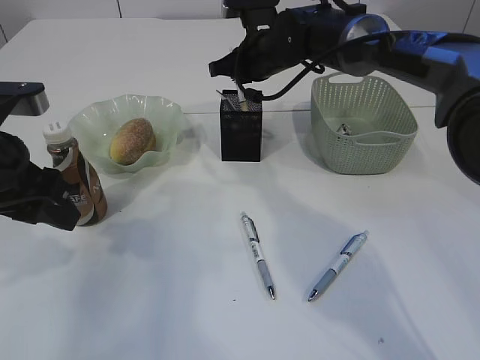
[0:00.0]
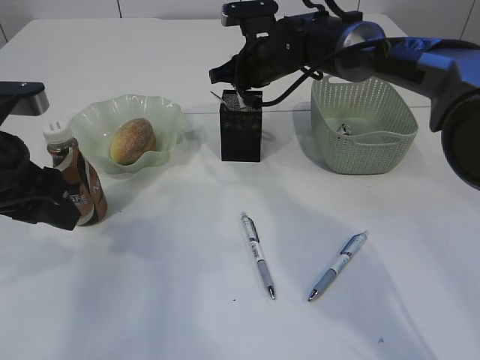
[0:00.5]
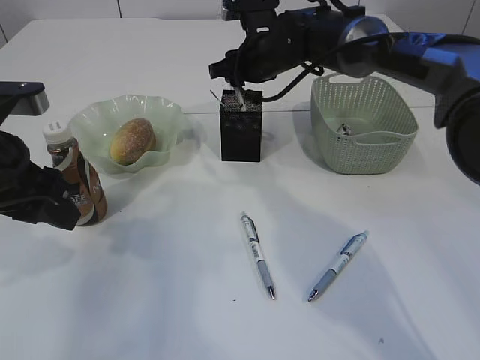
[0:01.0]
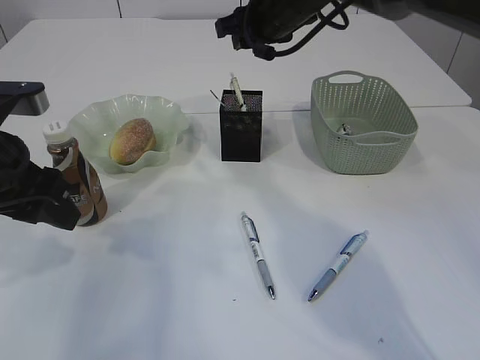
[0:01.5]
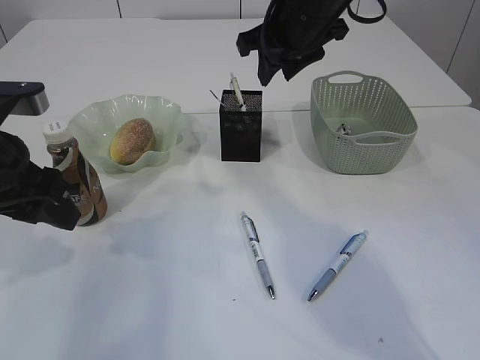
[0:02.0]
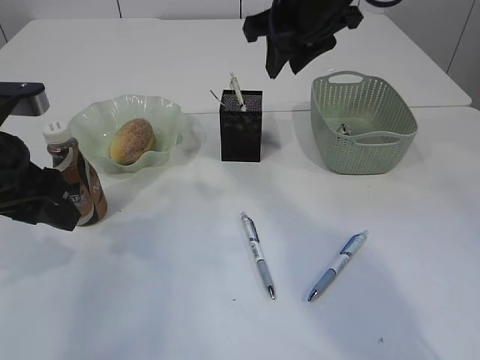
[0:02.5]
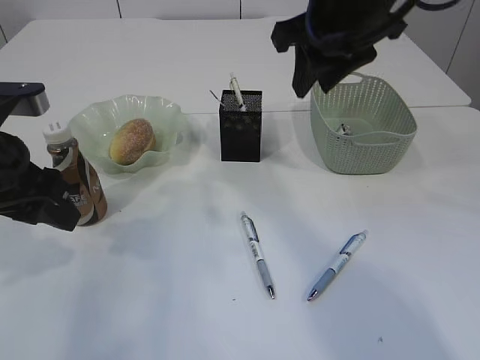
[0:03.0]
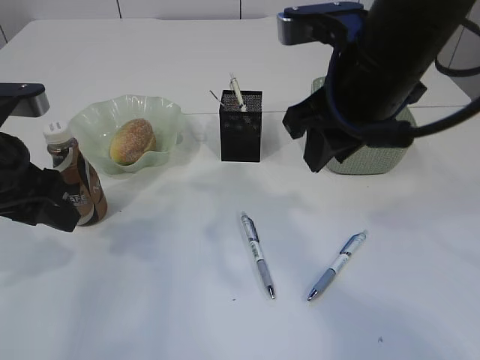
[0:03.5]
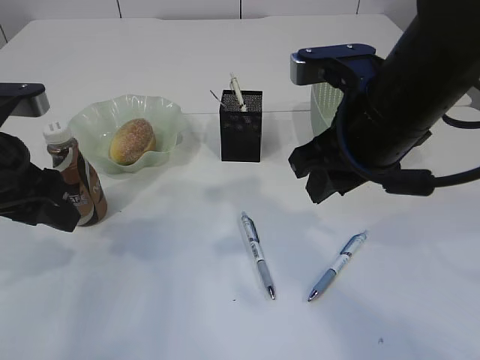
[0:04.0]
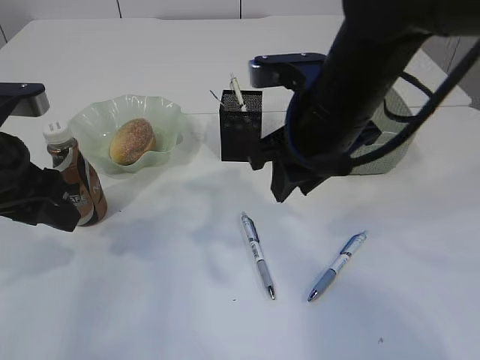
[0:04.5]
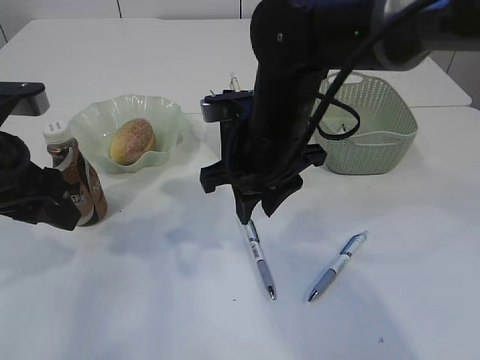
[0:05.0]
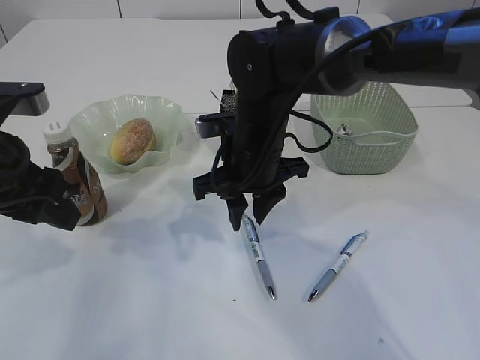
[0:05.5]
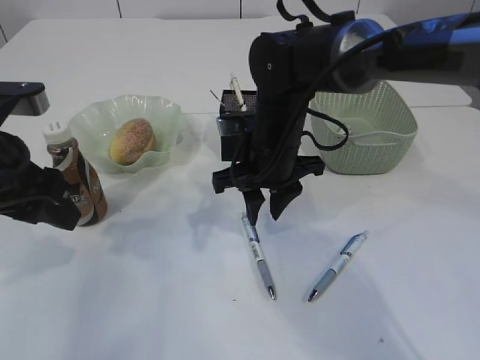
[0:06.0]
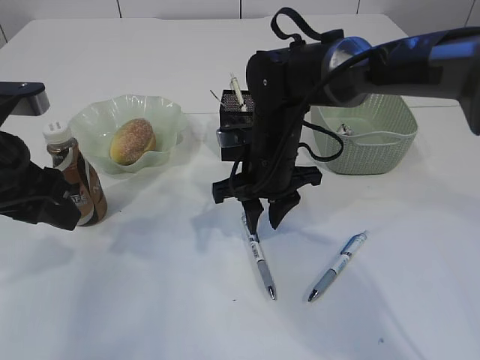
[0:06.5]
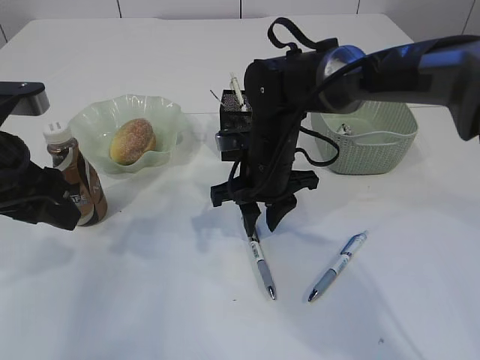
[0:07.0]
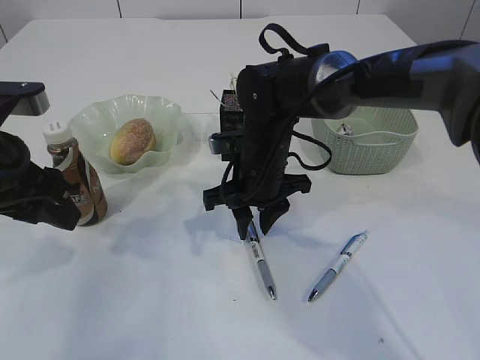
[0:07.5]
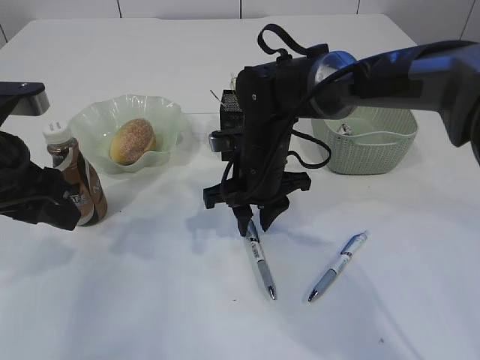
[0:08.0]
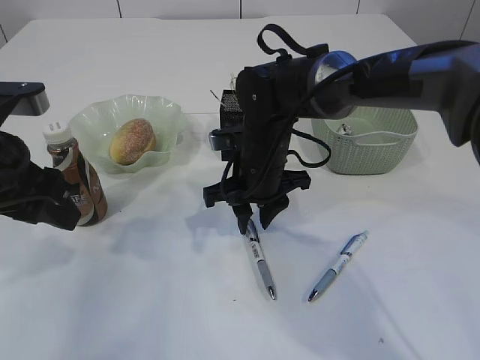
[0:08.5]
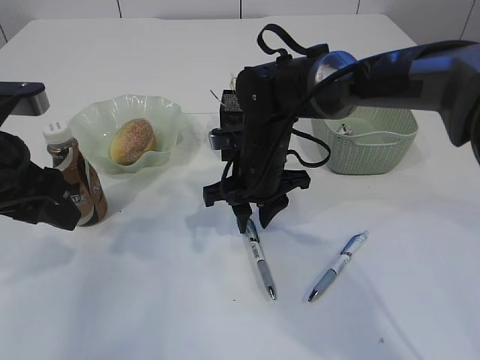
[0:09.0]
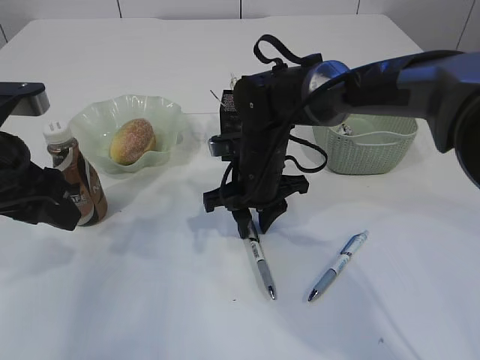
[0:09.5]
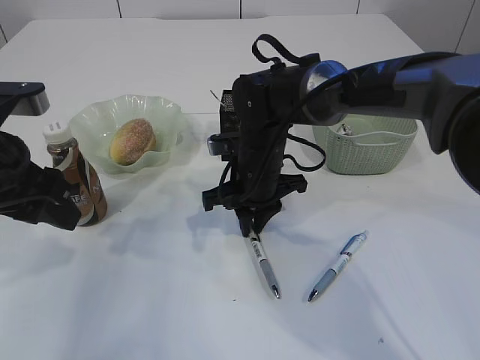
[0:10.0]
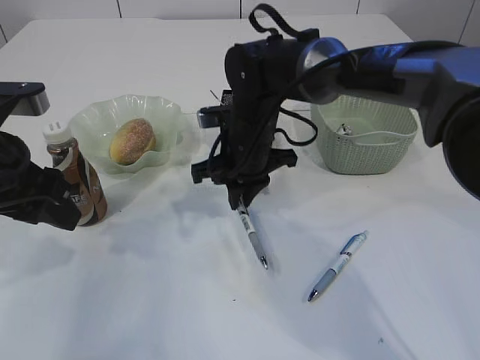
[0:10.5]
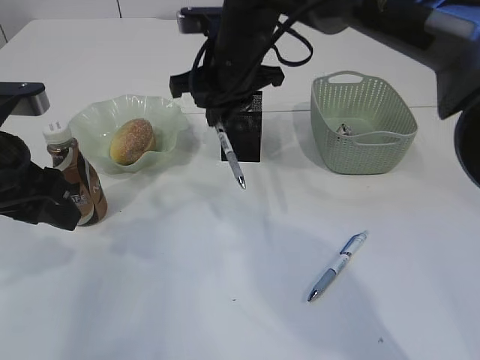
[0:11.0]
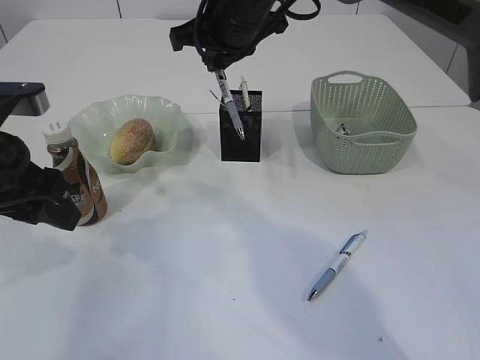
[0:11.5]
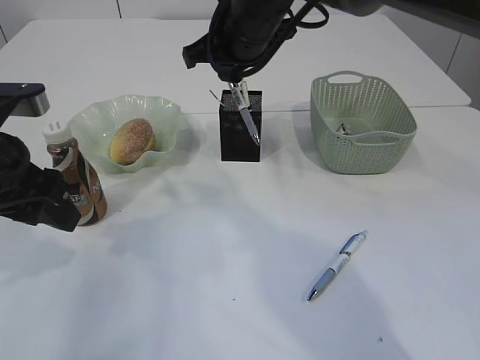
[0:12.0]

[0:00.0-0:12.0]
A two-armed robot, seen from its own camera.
Step, 0:01.5 to 0:10.5: Pick up the pen with right arm.
0:00.0 to 0:02.0: The right gripper heads upward and backward, covering about 10 cm, and opens up.
0:02.0 to 0:04.0: The right gripper is displaced backward by roughly 15 cm.
0:04.0 to 0:06.0: The right gripper heads forward, downward and to the left, covering roughly 15 cm.
0:06.0 to 0:08.0: The grippers make only small movements.
0:08.0 to 0:10.0: Neither gripper changes place.
0:10.0 to 0:12.0: The right gripper shifts about 15 cm upward.

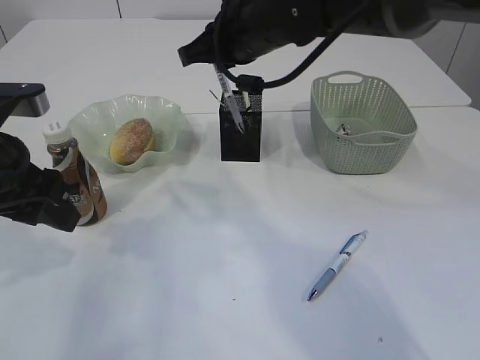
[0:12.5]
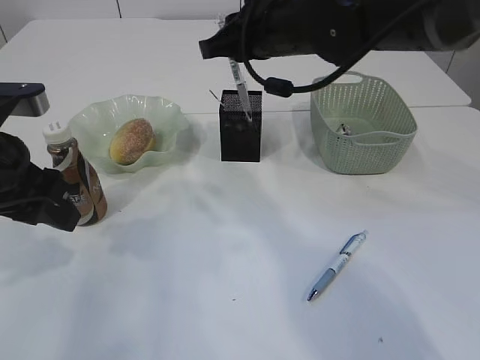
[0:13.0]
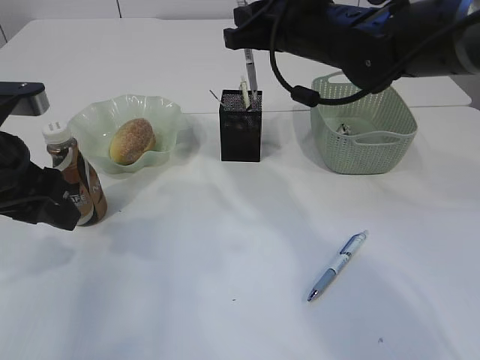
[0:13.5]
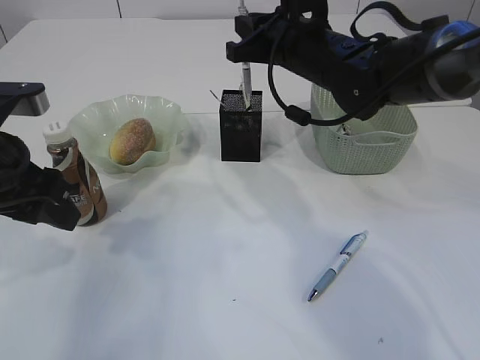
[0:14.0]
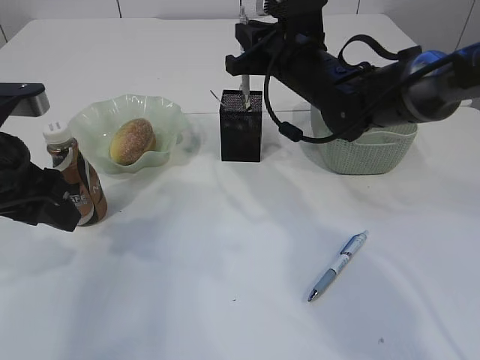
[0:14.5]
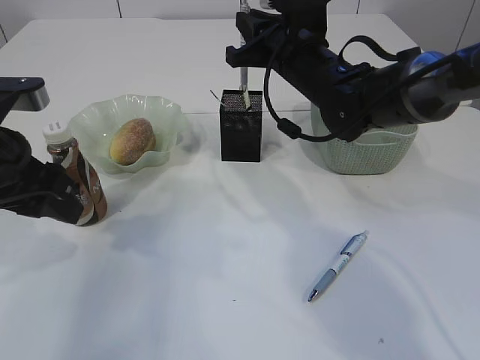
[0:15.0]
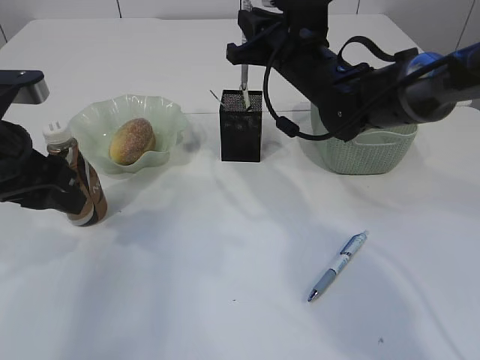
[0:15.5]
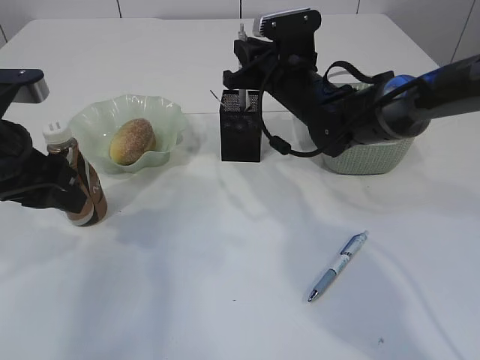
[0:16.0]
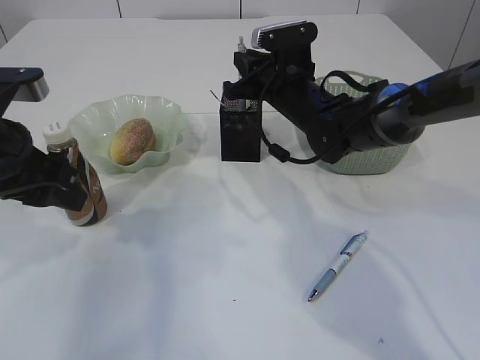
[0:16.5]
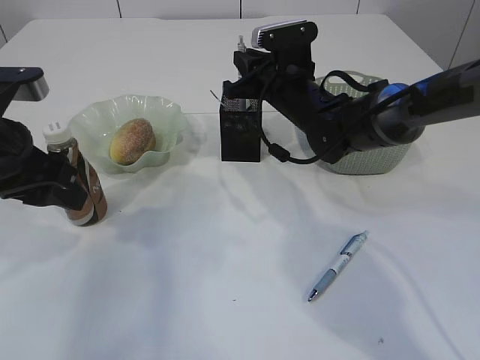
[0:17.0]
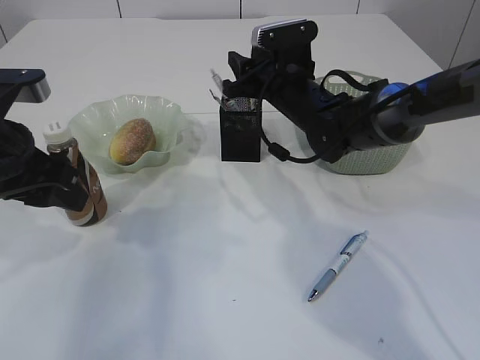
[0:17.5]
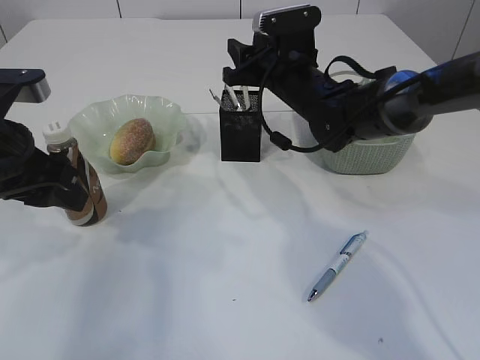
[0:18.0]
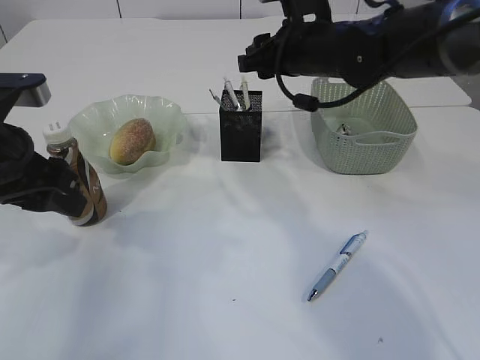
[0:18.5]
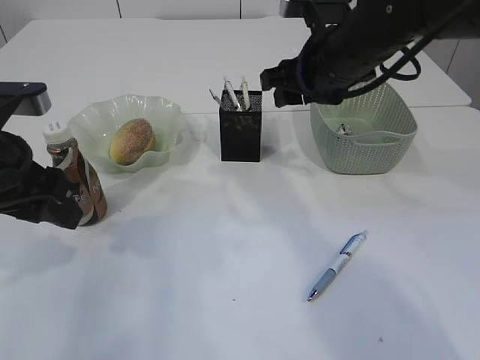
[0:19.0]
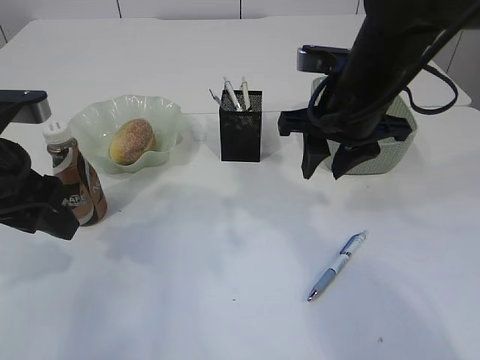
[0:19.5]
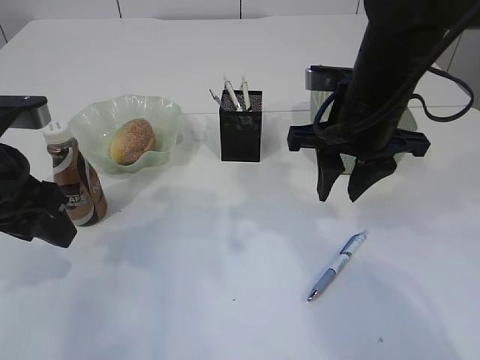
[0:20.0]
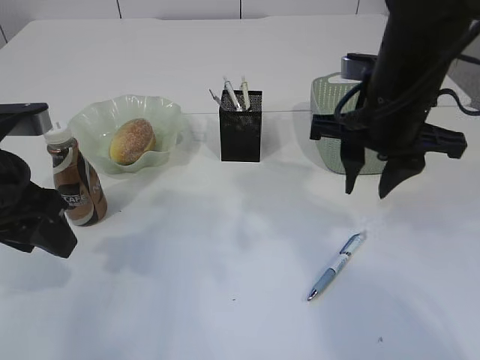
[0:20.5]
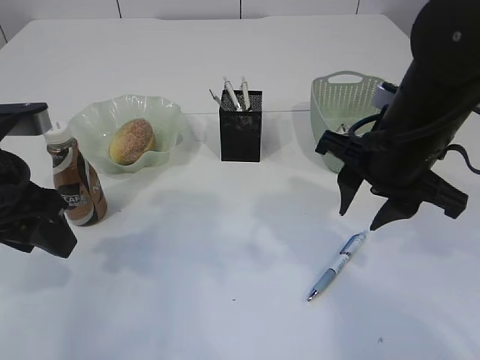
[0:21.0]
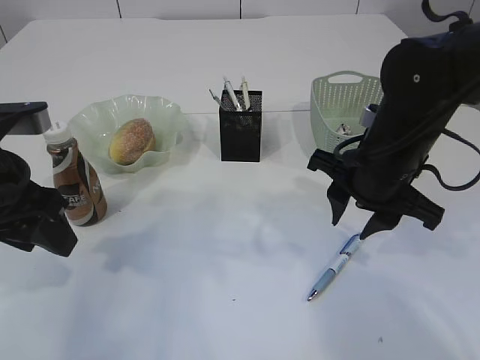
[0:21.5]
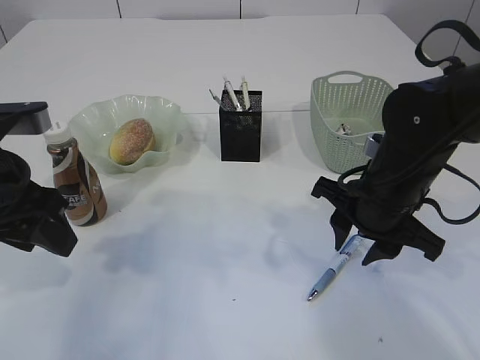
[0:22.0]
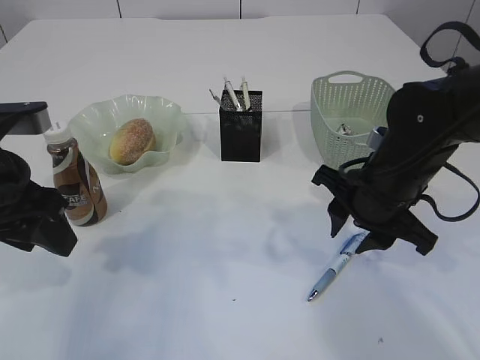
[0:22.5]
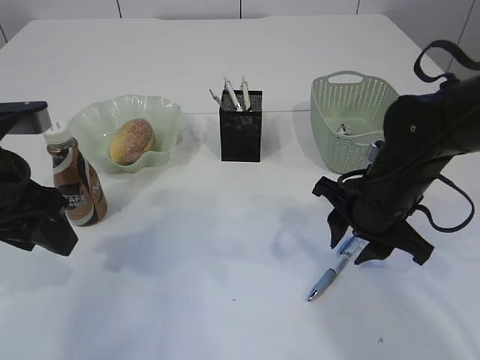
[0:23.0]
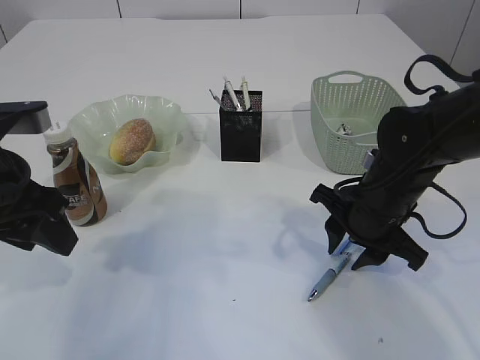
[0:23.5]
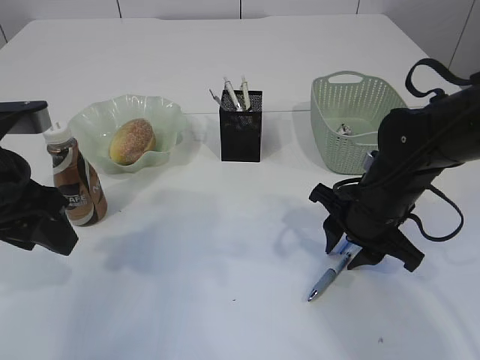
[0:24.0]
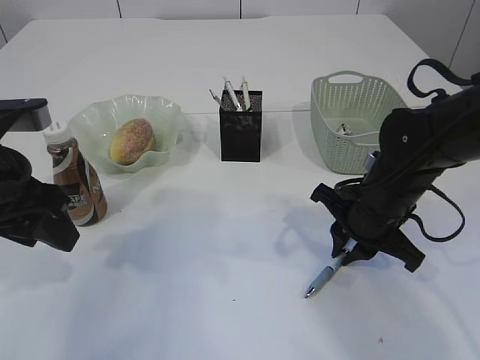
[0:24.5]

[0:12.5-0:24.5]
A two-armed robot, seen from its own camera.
Step, 0:12.5 to 0:18.0: Place the pen into the pen holder.
0:12.5 to 0:14.5: The right gripper goes about 10 cm downward and to the right.
0:14.5 to 0:16.5: The right gripper changes place by roughly 5 cm.
0:16.5 to 0:18.5: The right gripper is displaced upward by about 5 cm, and opens up.
0:18.5 to 0:20.5: The right gripper goes roughly 10 cm backward.
0:20.5 to 0:22.5: The right gripper heads downward, covering roughly 10 cm.
0:22.5 to 0:24.5: The right gripper closes up.

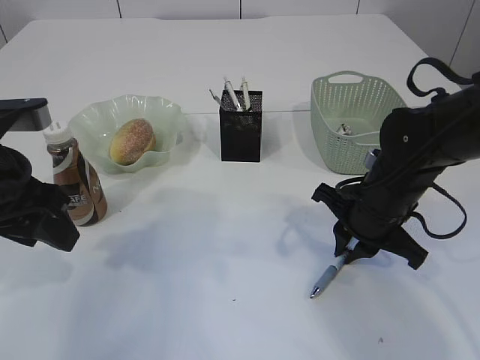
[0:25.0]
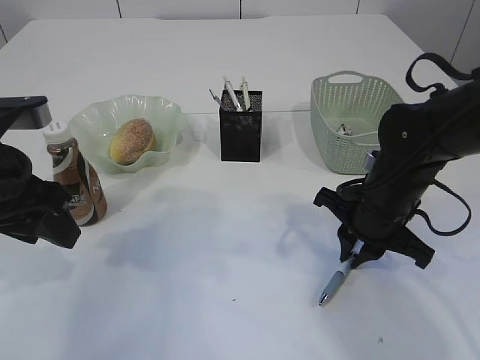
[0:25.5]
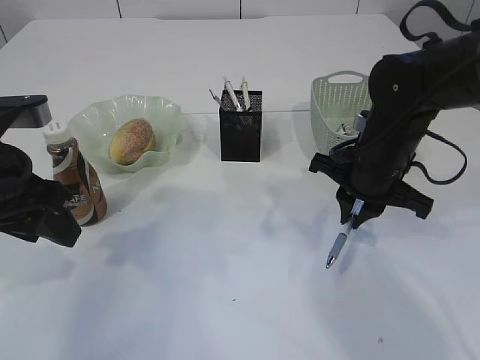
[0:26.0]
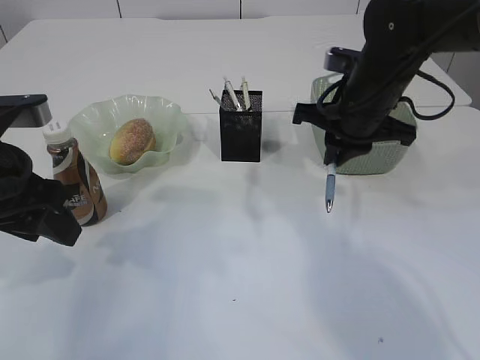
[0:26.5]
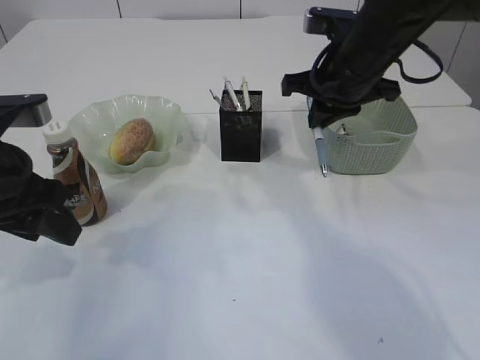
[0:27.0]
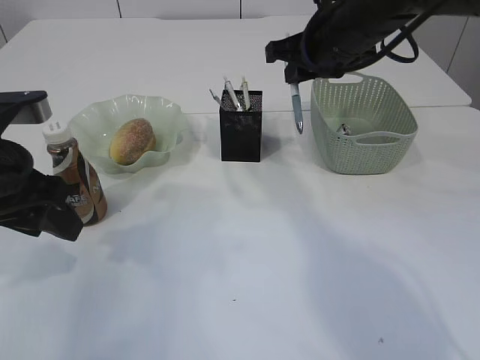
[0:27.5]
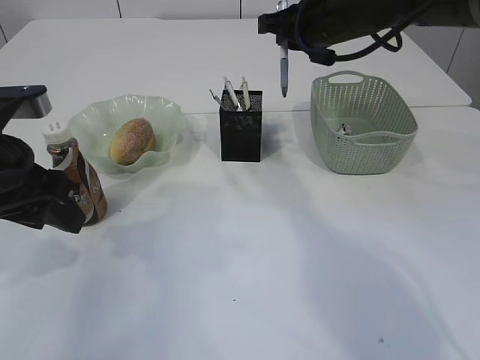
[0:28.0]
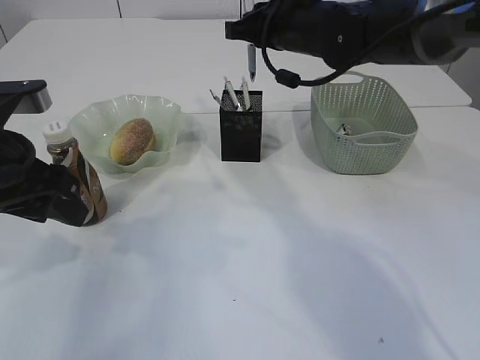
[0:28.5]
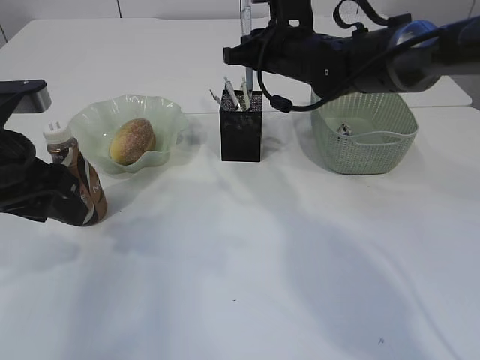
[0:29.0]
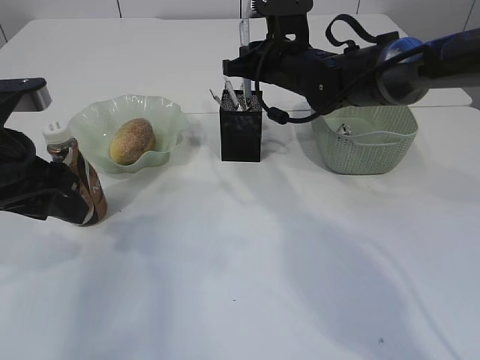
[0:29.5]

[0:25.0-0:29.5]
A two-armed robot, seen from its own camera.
0:25.0 to 0:27.0: The right gripper moves upward and forward, some 15 cm.
0:27.0 to 0:29.5: The right gripper goes approximately 10 cm forward and to the left.
